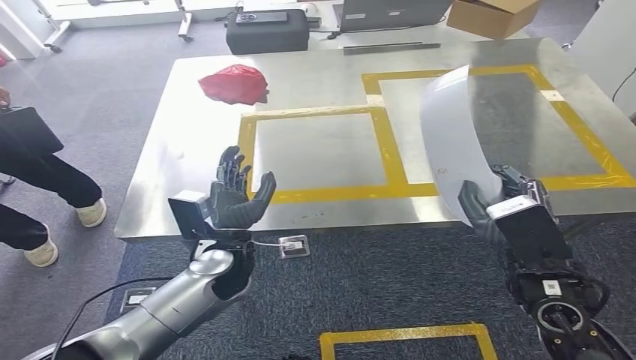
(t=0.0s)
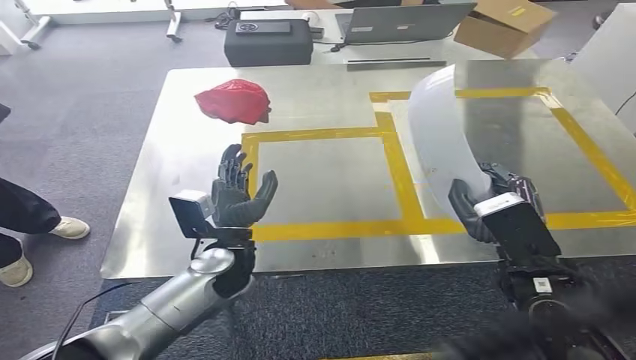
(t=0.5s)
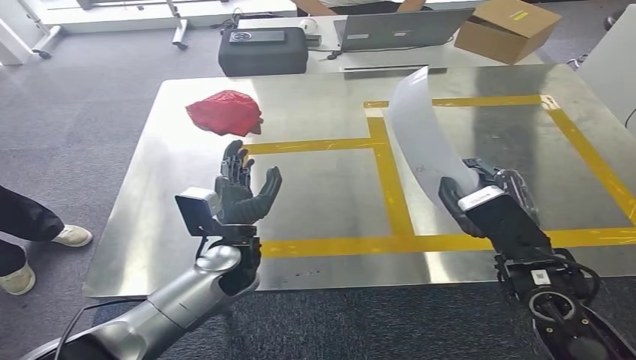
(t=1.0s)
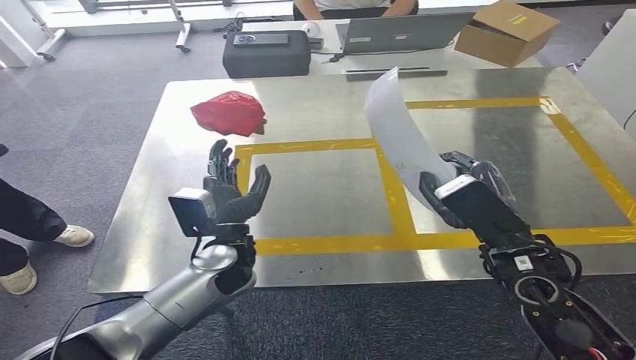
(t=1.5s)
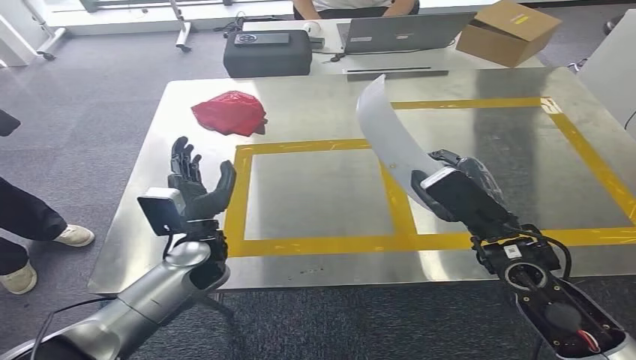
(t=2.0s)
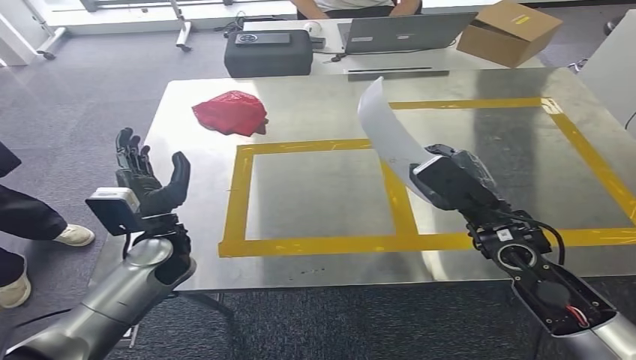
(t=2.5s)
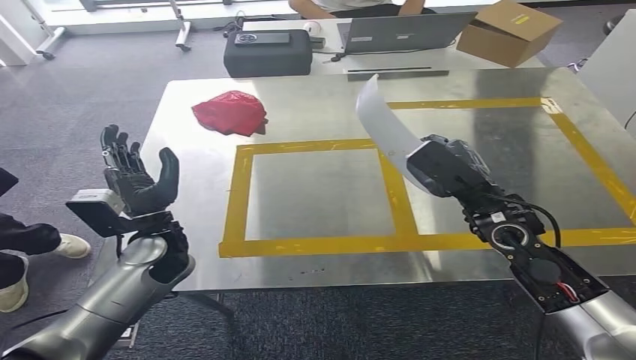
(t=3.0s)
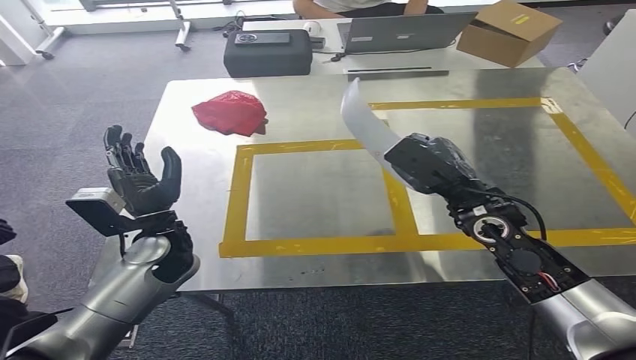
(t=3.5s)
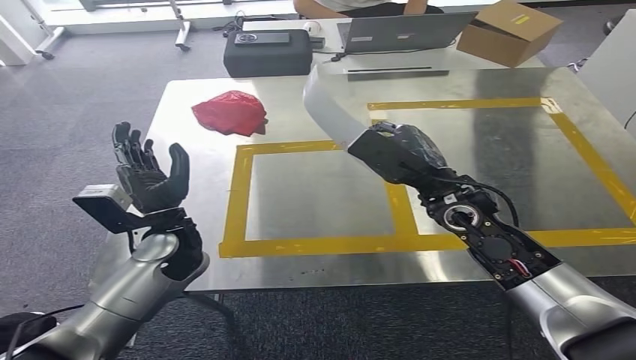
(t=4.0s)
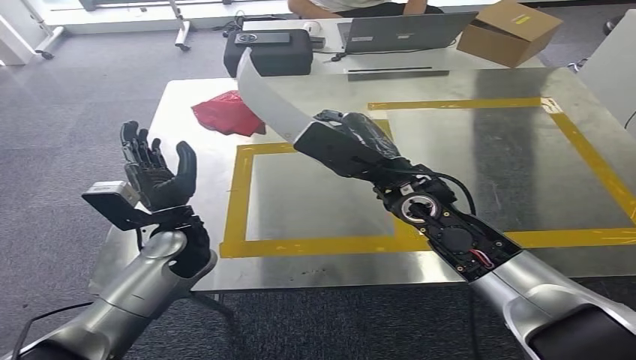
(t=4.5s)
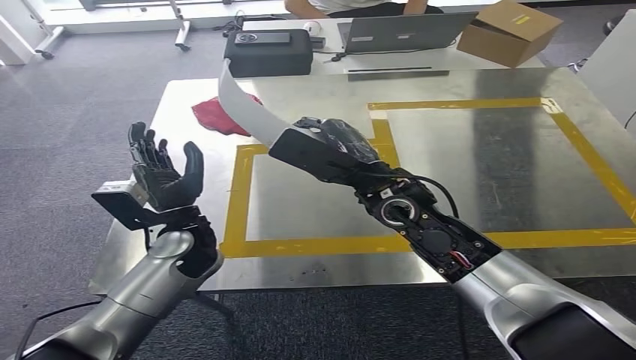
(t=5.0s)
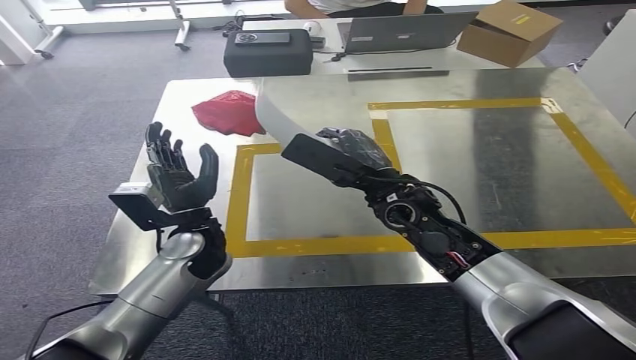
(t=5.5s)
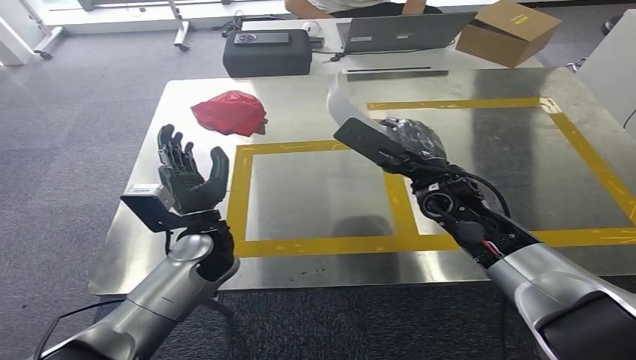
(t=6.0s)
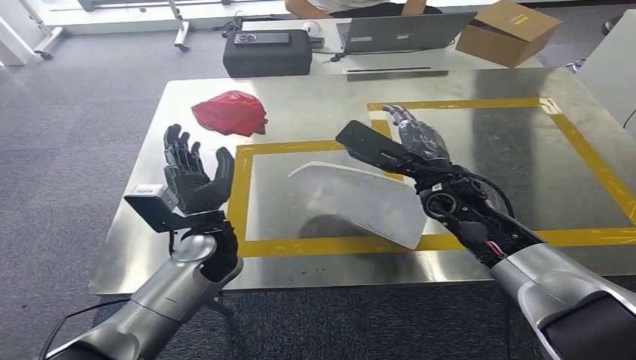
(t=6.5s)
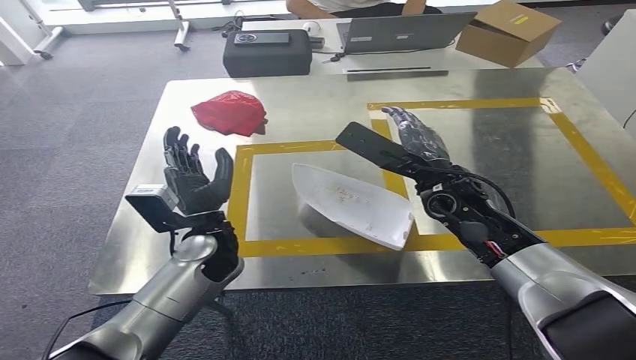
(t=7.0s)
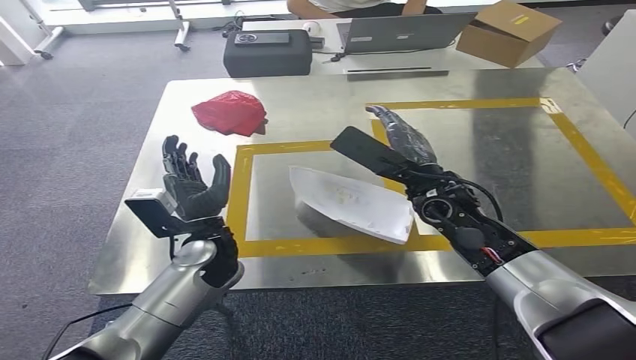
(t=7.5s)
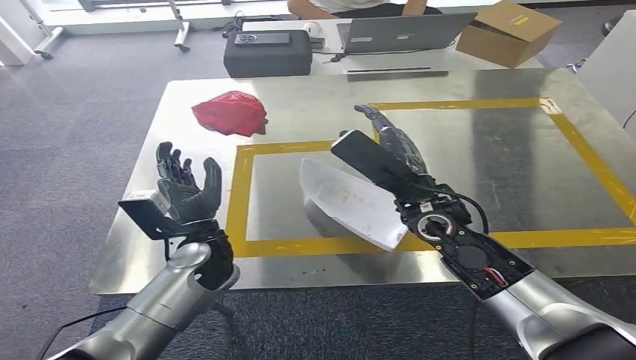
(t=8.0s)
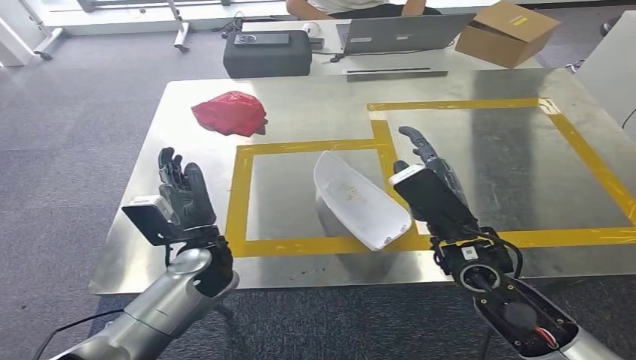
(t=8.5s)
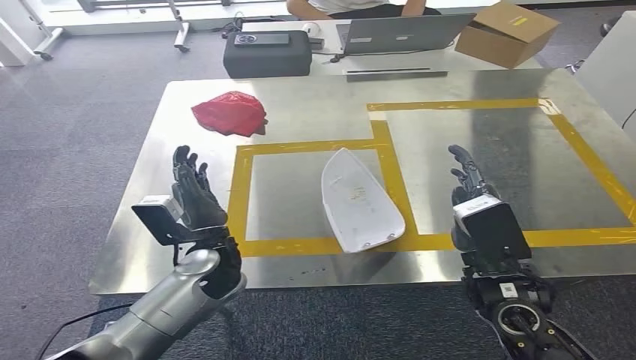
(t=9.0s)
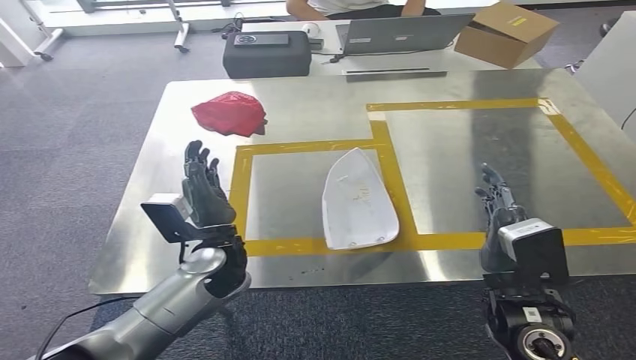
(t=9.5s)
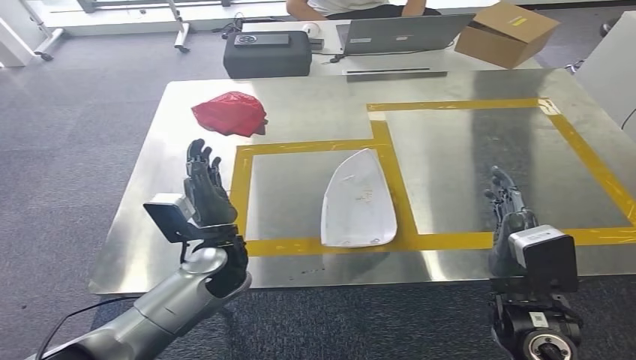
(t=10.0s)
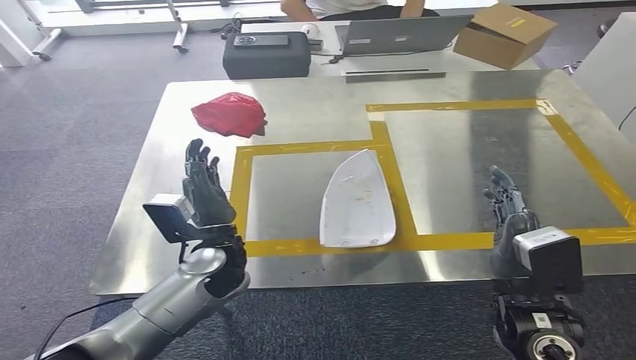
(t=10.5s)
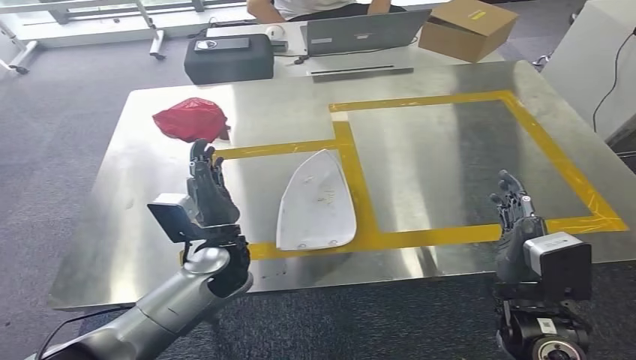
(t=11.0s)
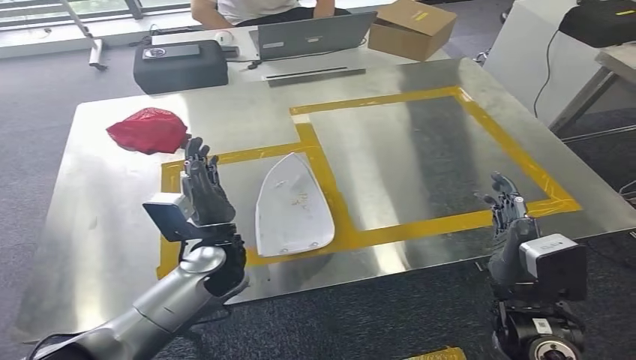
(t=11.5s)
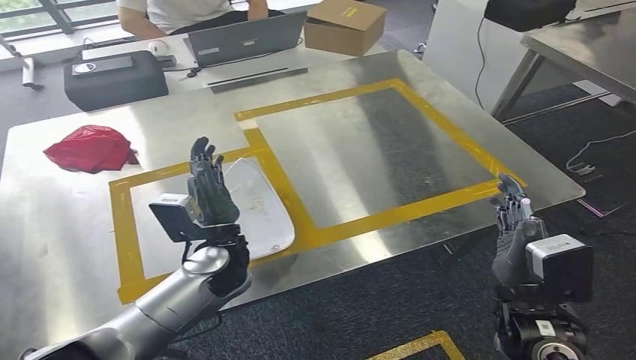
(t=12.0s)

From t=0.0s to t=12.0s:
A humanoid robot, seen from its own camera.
Step, from t=2.0s to t=6.0s: Place the white part on the table with right gripper.
From t=4.0s to t=6.0s: The left hand moves approximately 5 cm. Meanwhile the right hand travels to the left and back again, roughly 10 cm each way.
From t=8.0s to t=10.0s: The right hand moves backward and to the right, roughly 20 cm.
